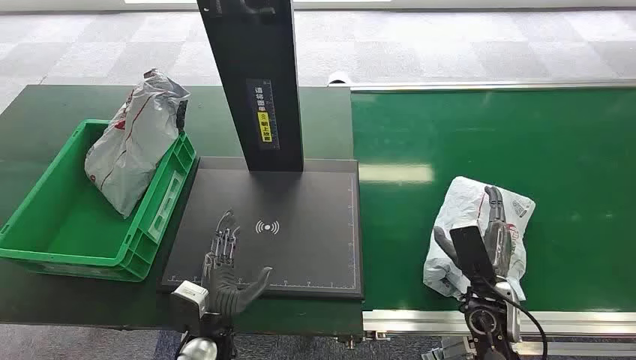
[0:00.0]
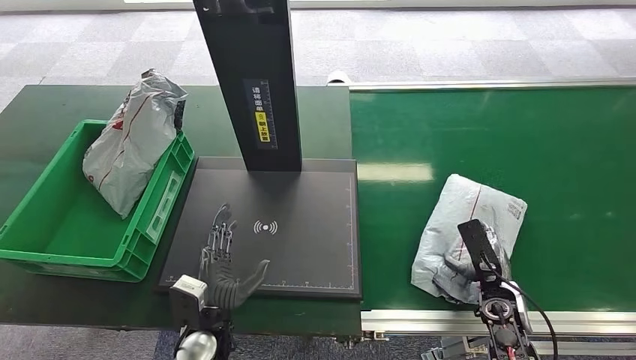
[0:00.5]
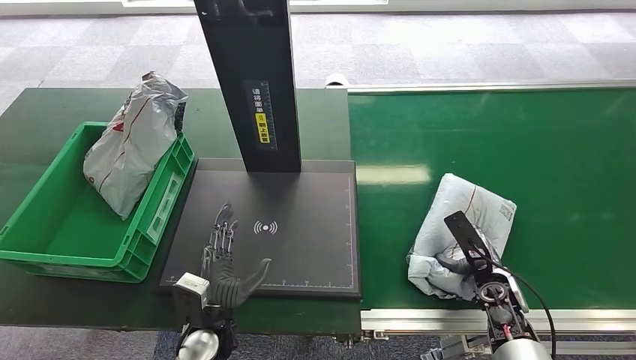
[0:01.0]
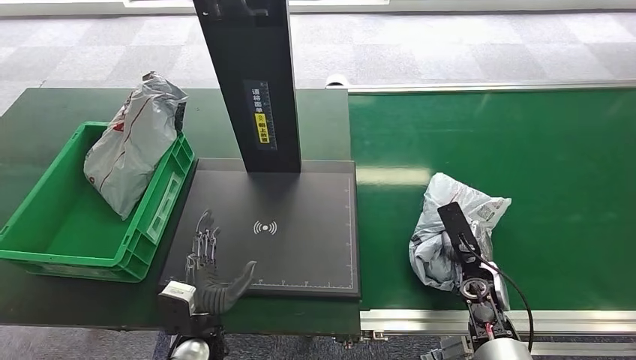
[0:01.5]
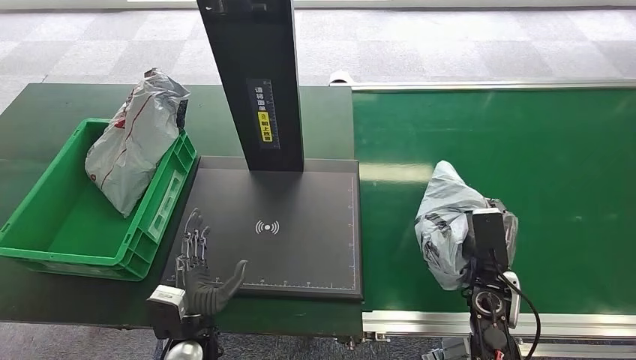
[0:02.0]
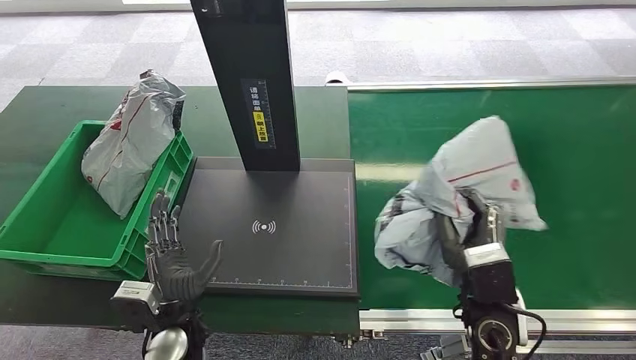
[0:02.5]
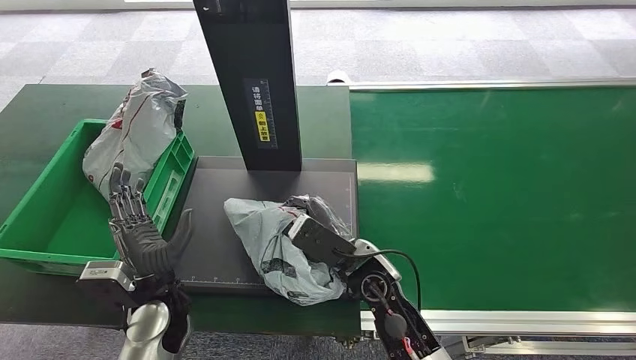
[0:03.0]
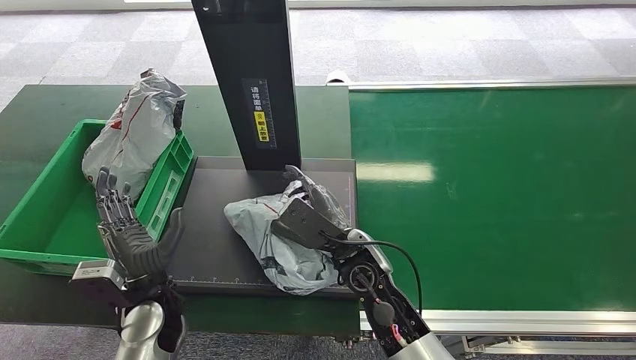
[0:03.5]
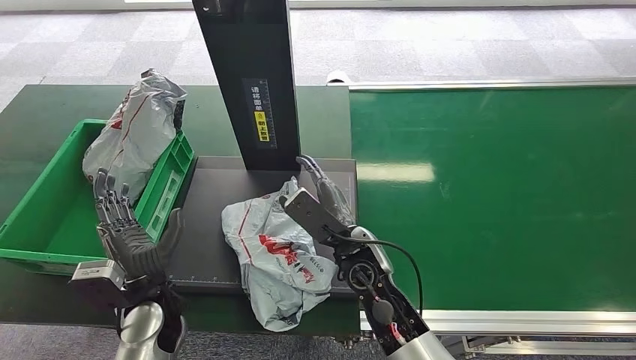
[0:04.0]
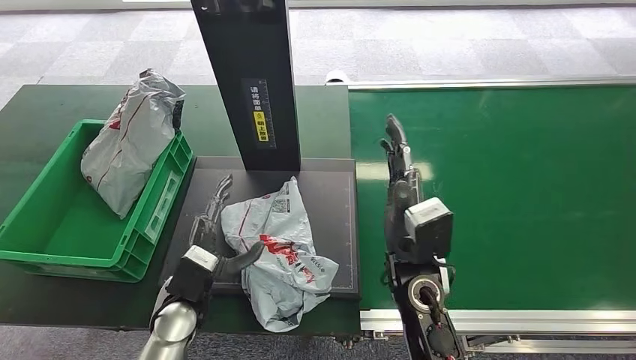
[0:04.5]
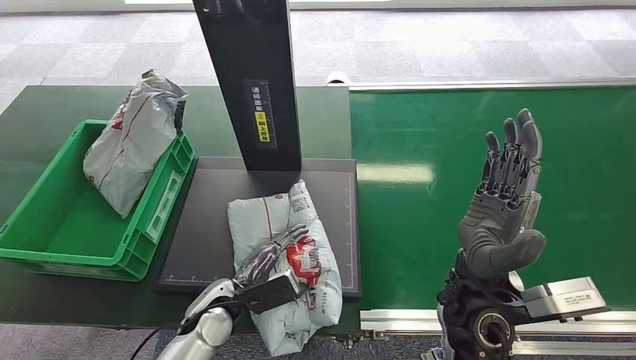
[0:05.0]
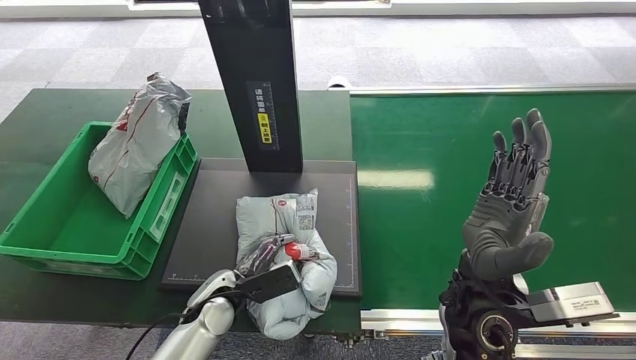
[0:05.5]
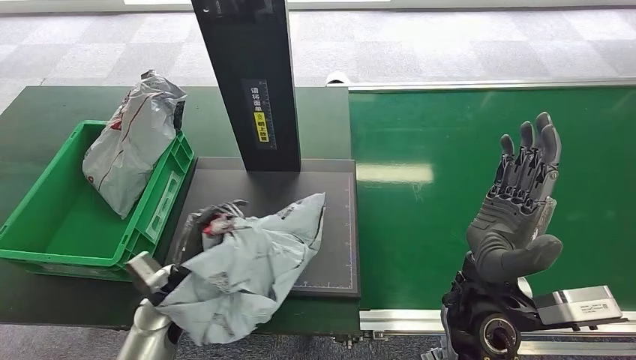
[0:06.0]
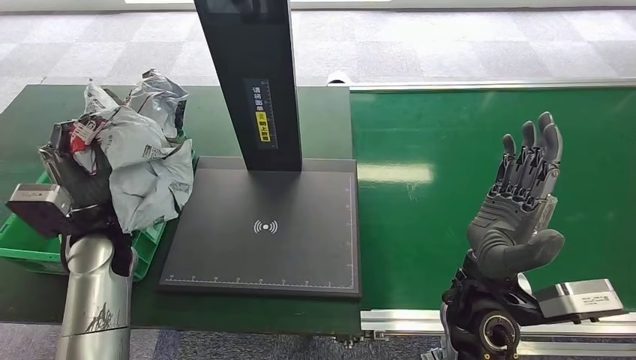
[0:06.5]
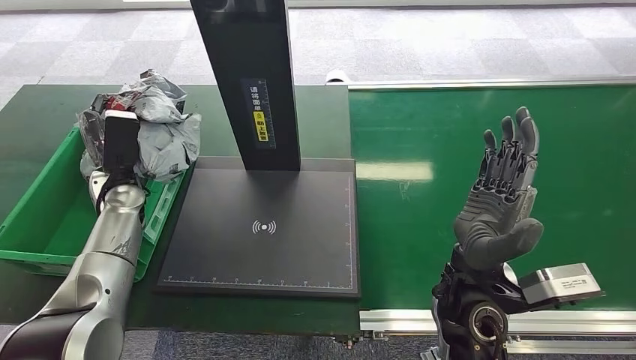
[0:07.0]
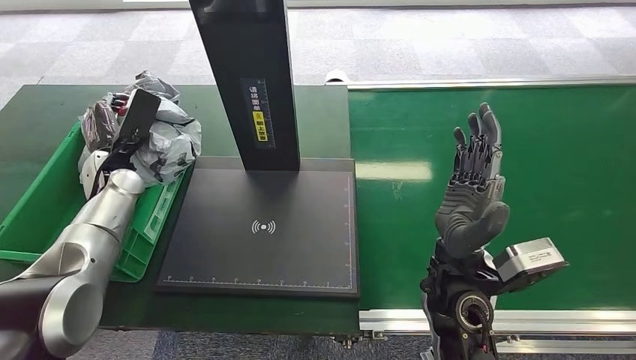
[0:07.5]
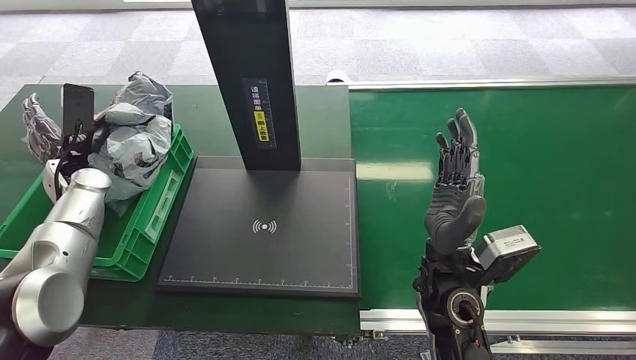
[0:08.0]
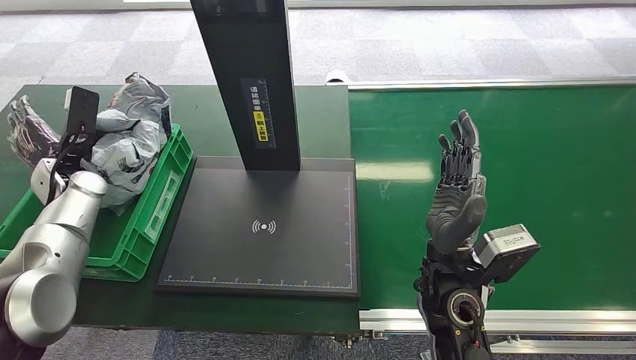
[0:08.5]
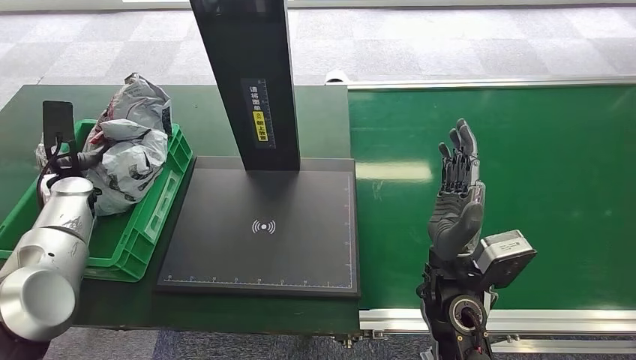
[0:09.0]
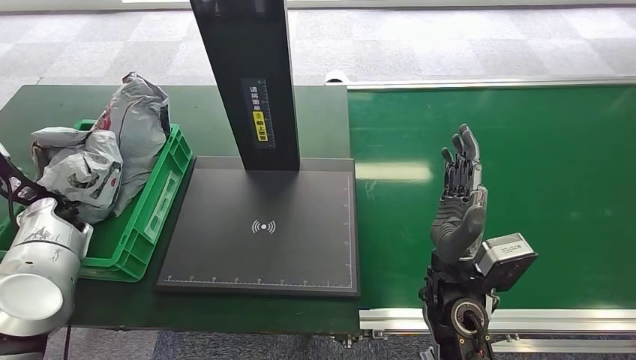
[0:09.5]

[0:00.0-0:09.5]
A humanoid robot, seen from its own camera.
Step, 0:00.0 to 0:02.0: Pick up the package from the conveyor belt.
Step, 0:02.5 to 0:04.5: Place the package onto the inbound machine.
Step, 0:05.0 to 0:06.0: Pick up the package from the inbound machine.
Step, 0:06.5 to 0:09.5: Place the package into the parcel locker.
0:07.5 to 0:09.5: The left hand goes about 10 cm to the left.
